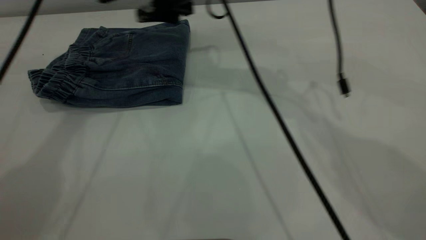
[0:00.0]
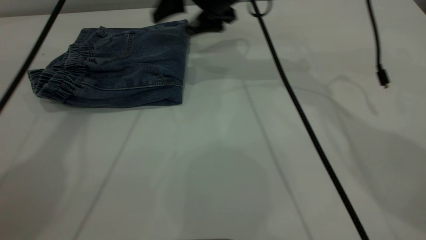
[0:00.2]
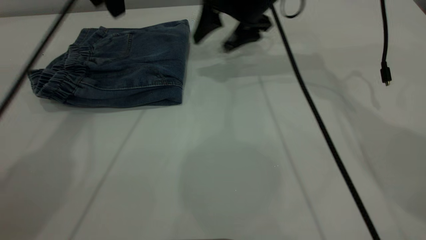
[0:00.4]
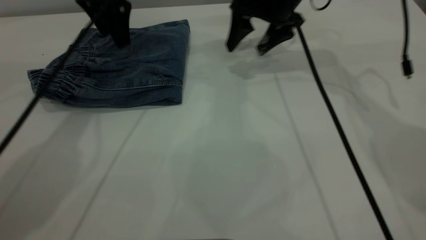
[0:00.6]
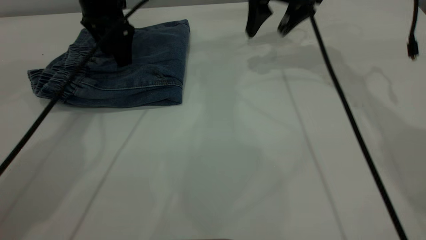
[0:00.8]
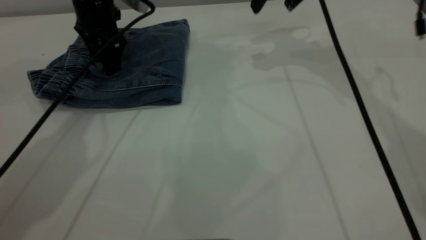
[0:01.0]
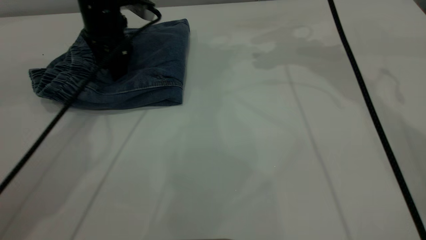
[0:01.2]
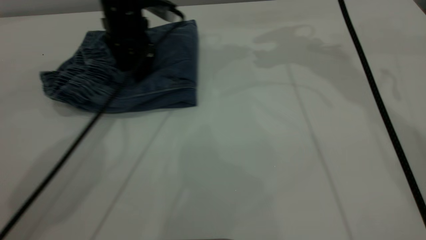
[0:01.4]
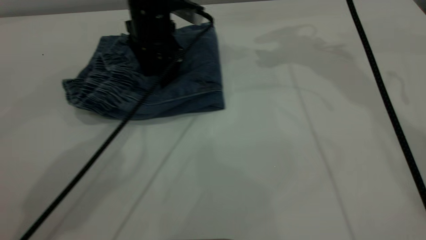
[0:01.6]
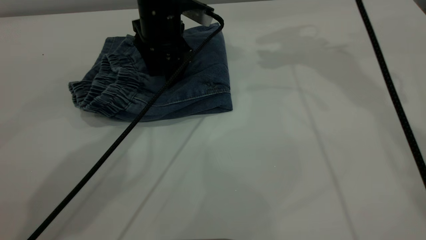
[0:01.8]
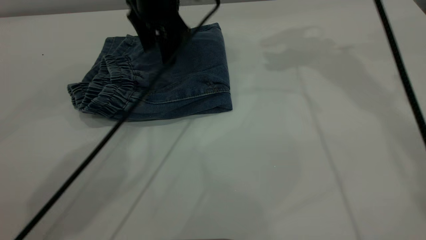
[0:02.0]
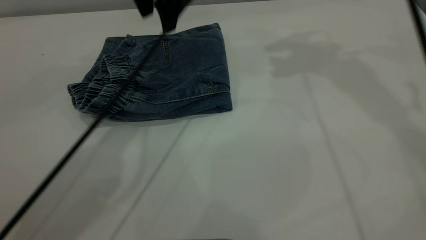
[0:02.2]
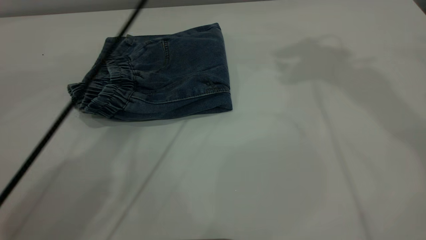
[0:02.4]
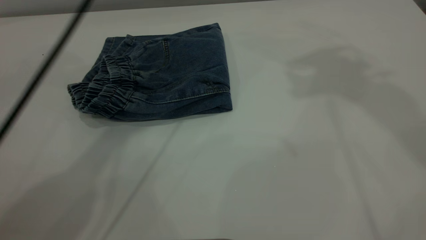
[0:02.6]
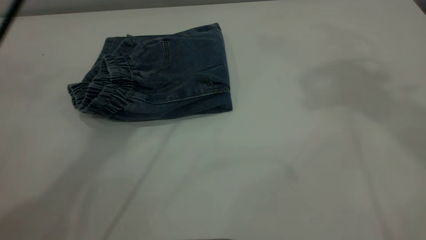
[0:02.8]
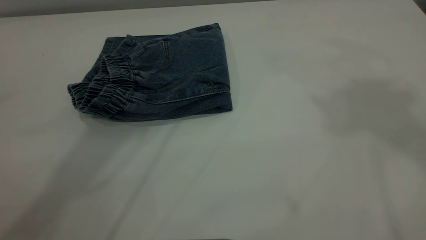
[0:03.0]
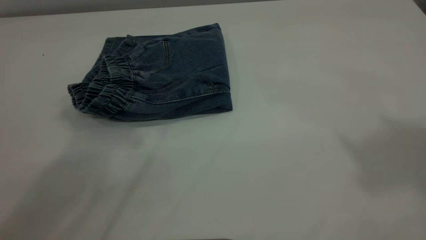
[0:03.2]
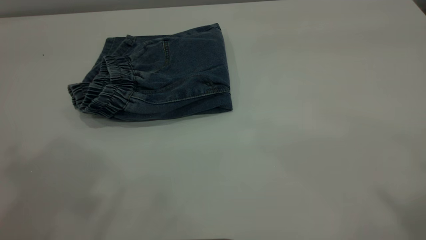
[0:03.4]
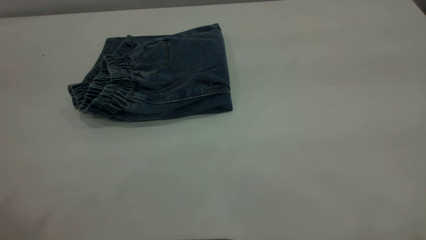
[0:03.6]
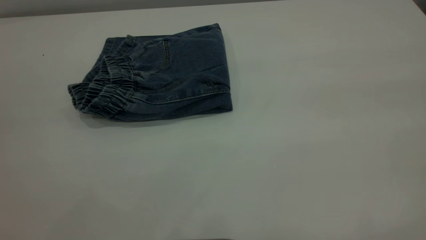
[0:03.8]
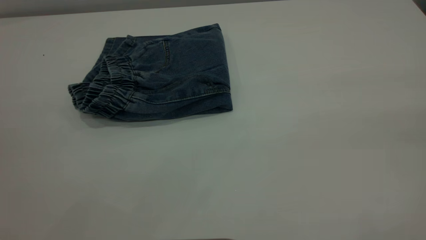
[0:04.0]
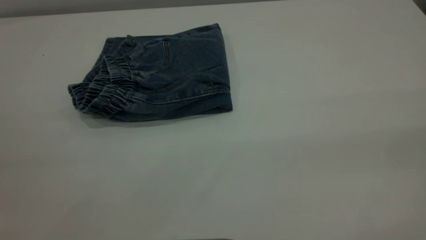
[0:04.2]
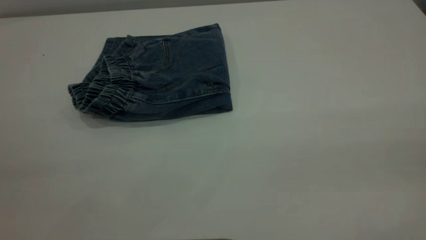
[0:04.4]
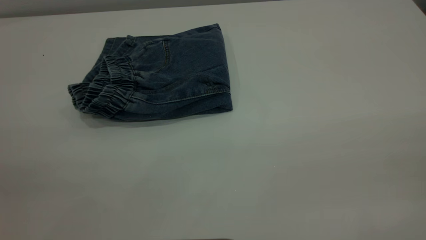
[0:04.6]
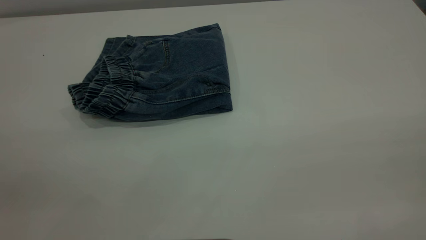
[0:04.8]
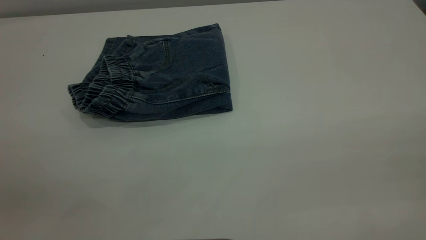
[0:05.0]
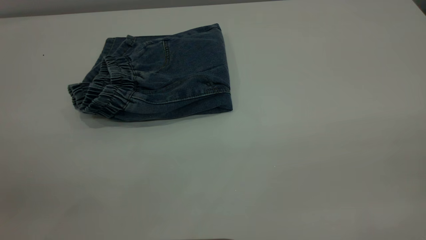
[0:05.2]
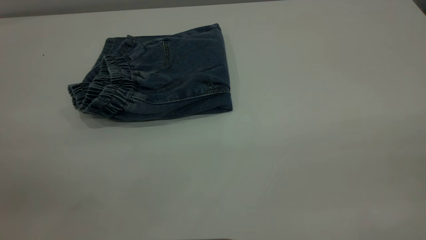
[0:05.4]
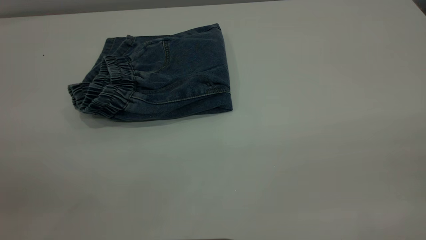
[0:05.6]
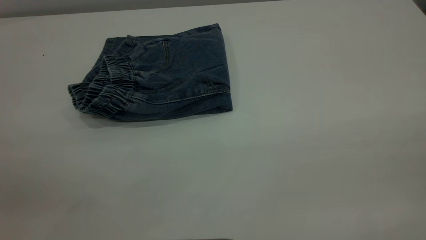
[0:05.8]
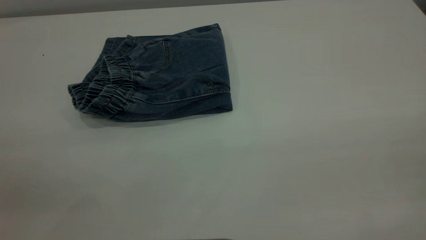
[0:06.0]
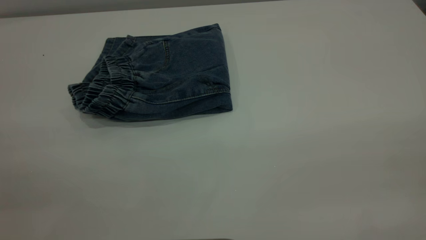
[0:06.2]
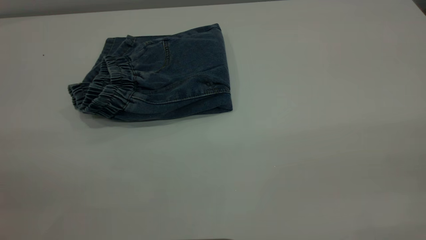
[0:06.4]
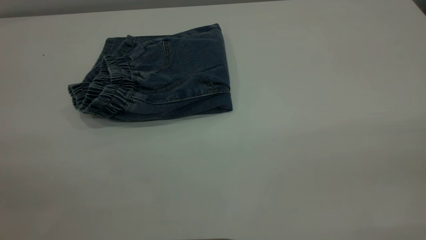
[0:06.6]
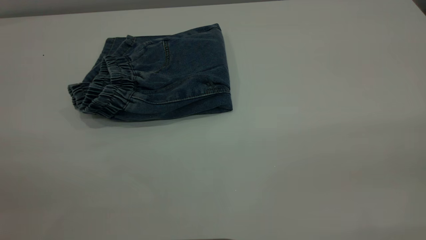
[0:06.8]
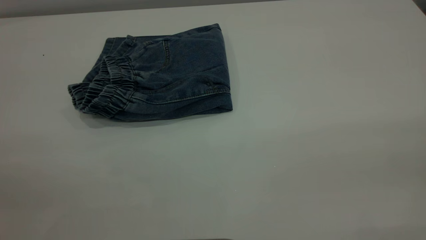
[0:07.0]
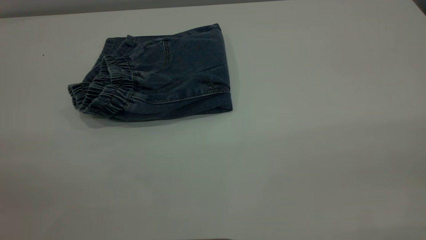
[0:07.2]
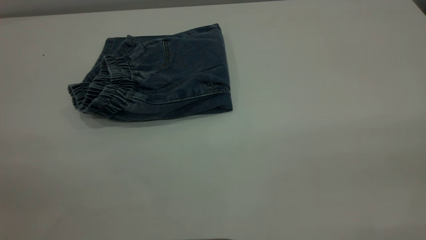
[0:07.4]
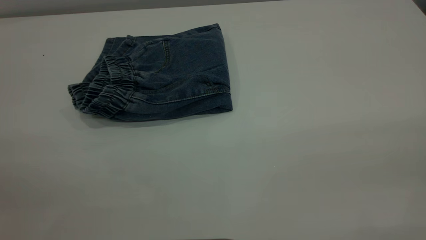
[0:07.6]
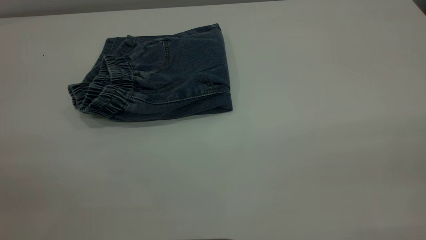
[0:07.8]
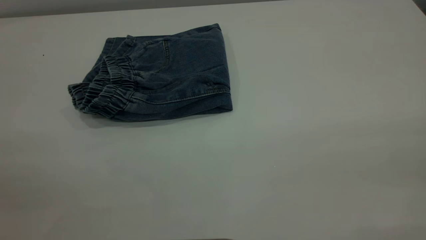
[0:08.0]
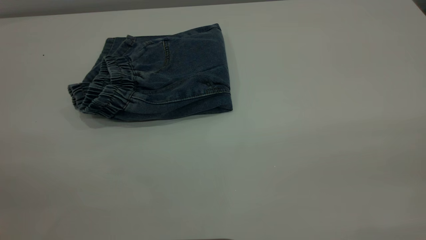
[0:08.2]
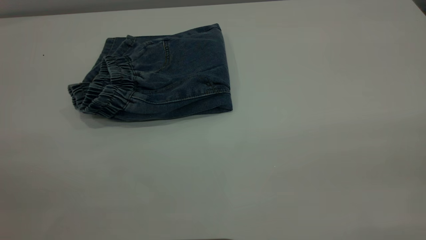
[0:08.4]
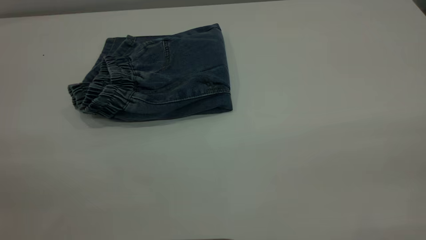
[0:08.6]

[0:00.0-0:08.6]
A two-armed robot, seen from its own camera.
0:00.0 to 0:01.4: The left gripper shifts some 20 cm downward and to the right; the right gripper shifts about 15 cm to the right and upward.
0:01.4 to 0:02.8: The right gripper moves upward and backward, some 30 cm. Meanwhile the left gripper shifts approximately 30 cm upward.
